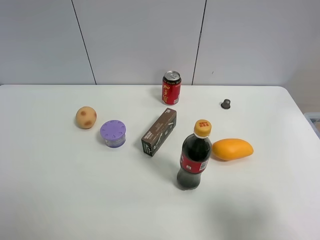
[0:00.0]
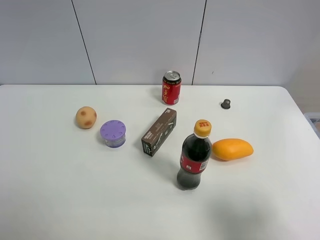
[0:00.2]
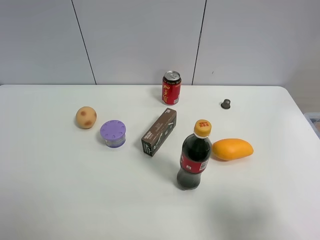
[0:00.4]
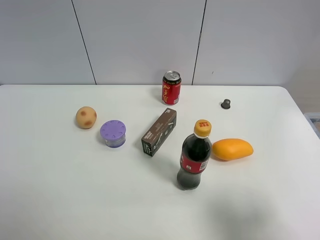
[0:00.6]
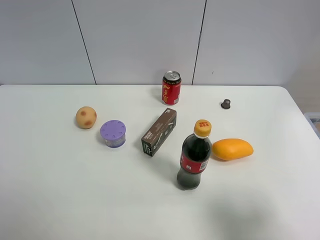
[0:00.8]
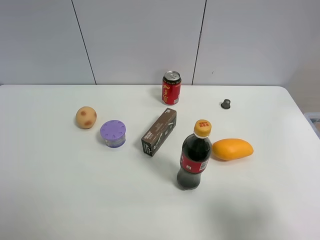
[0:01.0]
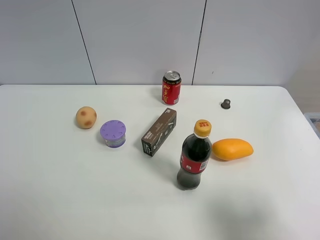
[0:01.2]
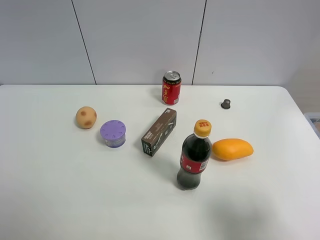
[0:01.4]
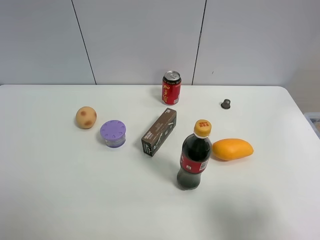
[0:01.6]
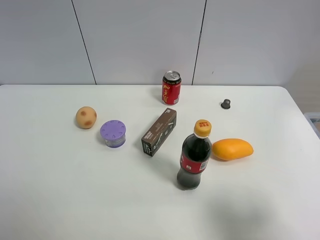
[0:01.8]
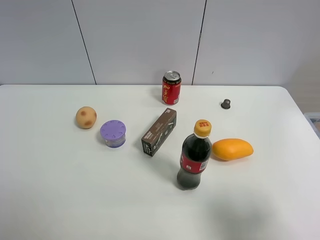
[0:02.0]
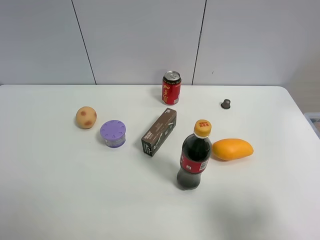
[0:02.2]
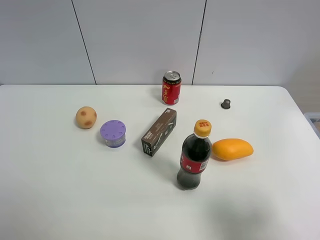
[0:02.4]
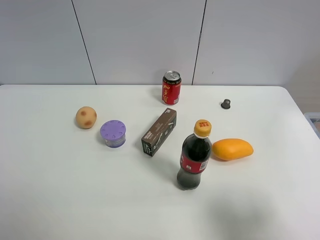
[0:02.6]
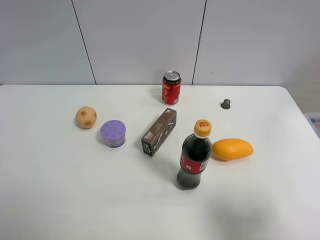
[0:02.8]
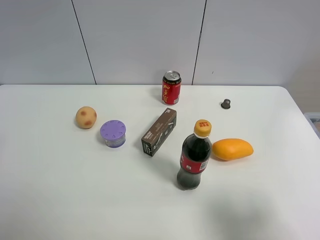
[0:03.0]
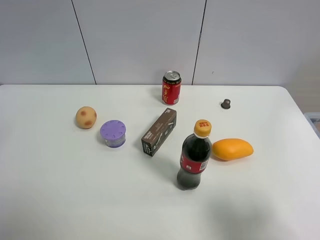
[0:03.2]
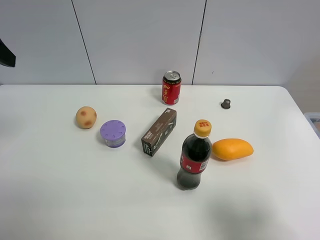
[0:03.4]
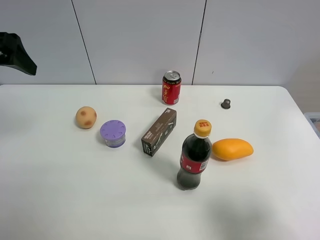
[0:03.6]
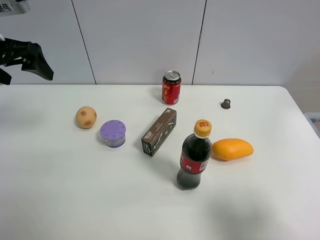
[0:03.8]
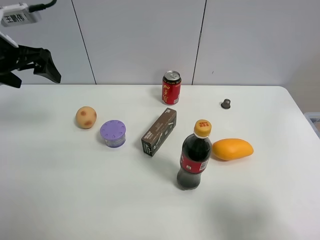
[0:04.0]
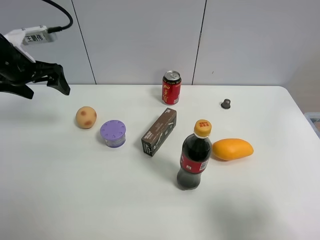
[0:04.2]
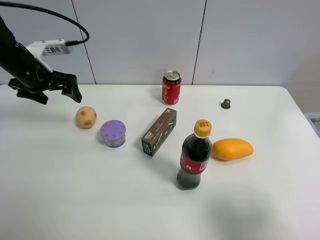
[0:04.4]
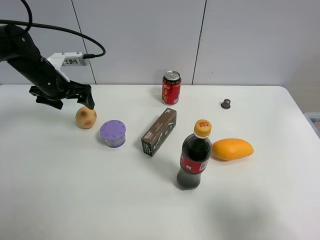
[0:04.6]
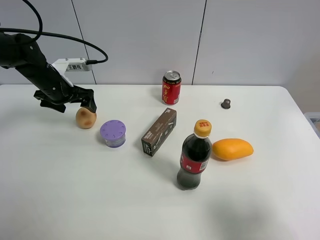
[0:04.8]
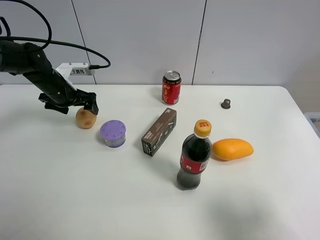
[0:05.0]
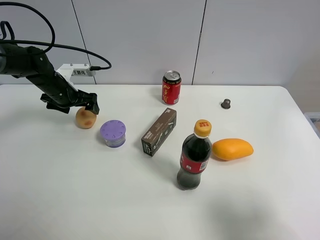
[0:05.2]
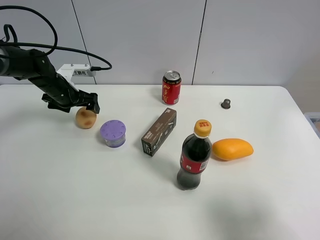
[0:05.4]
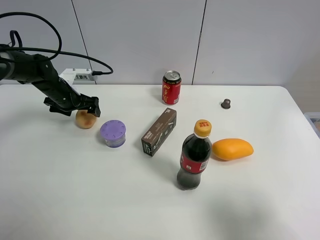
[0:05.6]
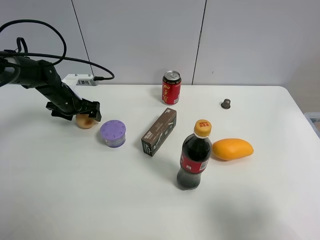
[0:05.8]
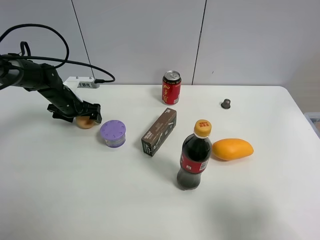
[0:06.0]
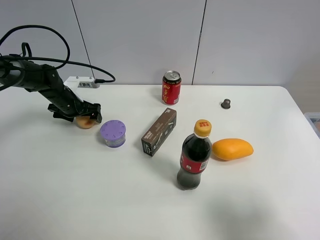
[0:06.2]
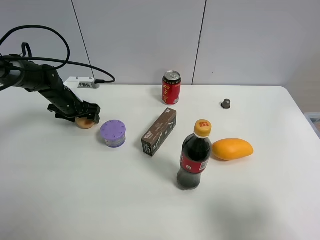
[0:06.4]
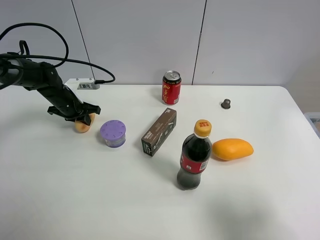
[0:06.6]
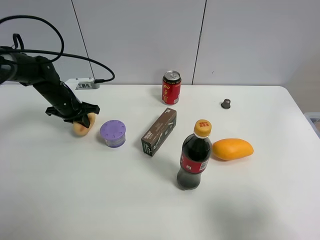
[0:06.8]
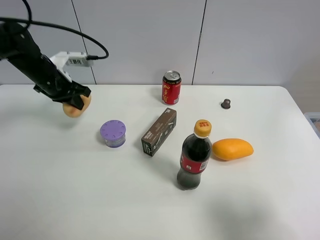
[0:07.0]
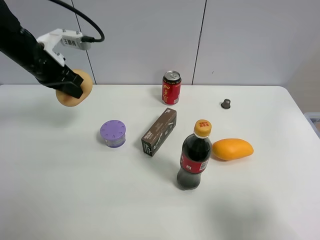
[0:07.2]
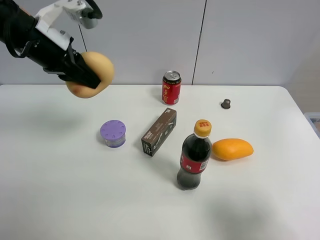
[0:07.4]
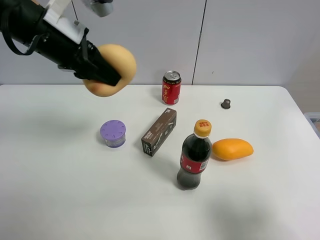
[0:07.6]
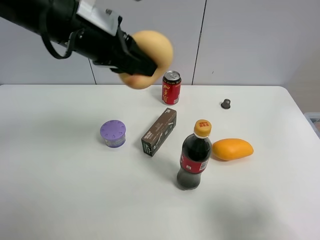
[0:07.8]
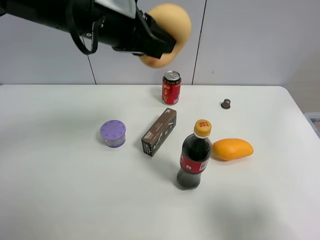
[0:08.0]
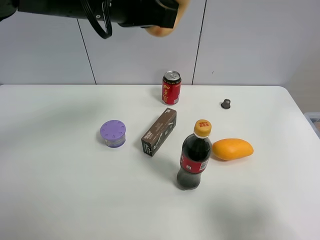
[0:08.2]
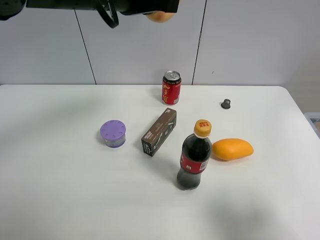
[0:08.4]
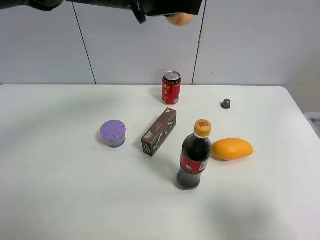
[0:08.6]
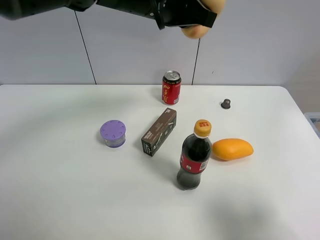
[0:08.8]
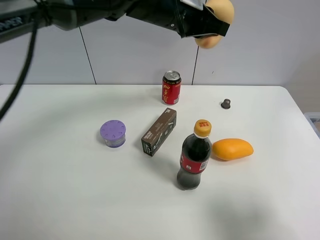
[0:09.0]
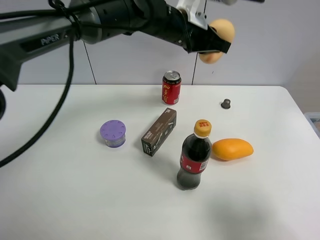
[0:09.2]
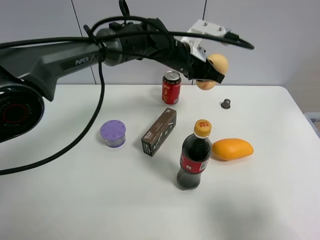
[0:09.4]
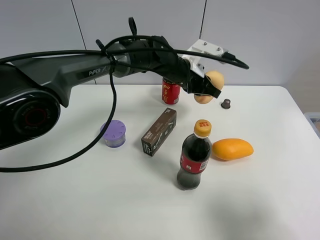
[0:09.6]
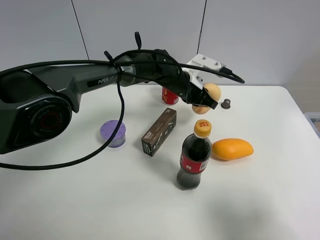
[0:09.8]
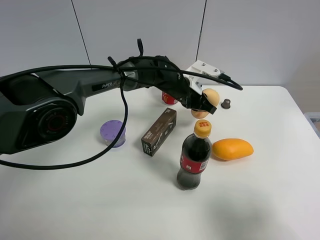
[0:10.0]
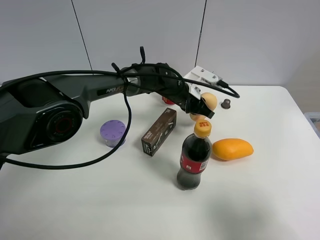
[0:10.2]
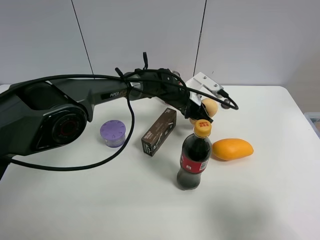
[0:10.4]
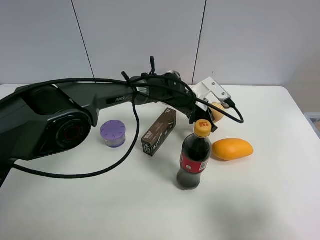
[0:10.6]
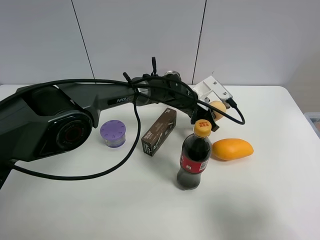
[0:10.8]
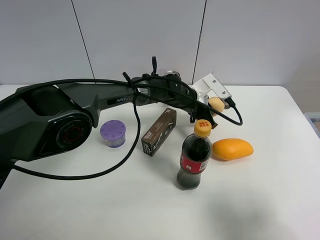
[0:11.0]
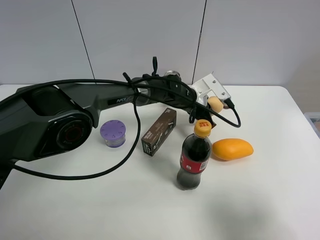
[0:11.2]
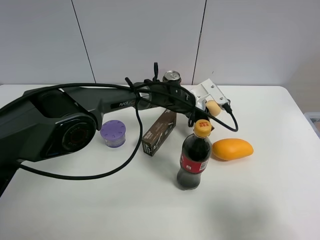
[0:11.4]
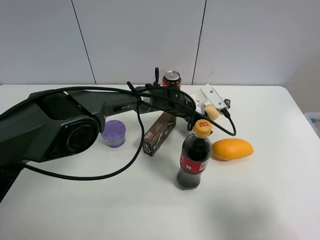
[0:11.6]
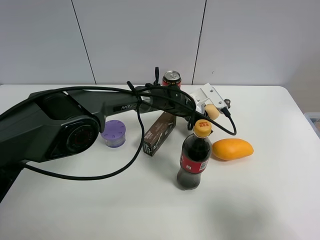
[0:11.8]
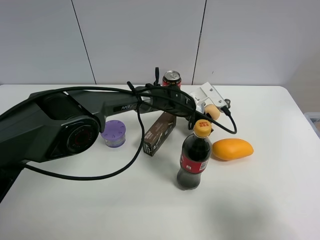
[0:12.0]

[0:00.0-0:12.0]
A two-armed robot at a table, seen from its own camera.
Task of the whole recording: the gripper move the object.
Step, 0.0 to 6.4 s: Grasp the egg yolk pastry with the left gripper.
0.0 to 1.6 s: Neither gripper changes place.
3.0 to 4.4 s: The left gripper heads forward and downward, covering about 30 cm.
4.4 to 6.0 s: The left gripper shifts about 15 cm downward.
6.0 to 7.6 s: The left gripper moves upward, backward and to the right, some 30 cm, and closes.
7.6 to 9.0 s: The left gripper travels to the right and forward by some 20 cm.
9.0 to 10.4 s: The left gripper goes about 20 cm downward.
10.4 to 12.0 s: The left gripper opens.

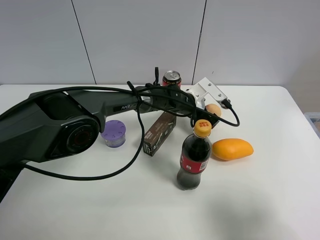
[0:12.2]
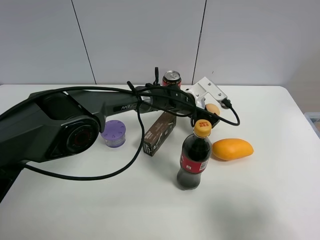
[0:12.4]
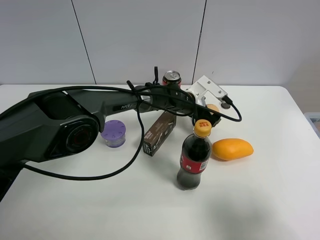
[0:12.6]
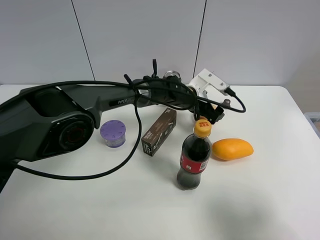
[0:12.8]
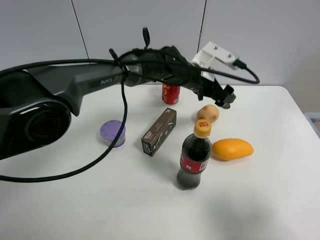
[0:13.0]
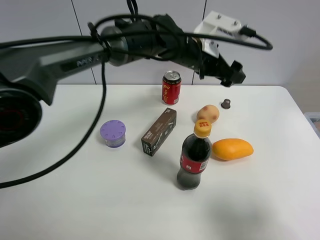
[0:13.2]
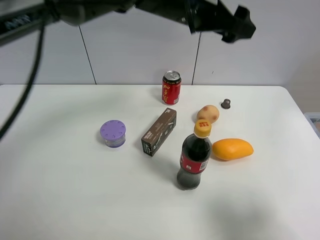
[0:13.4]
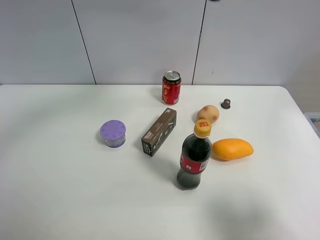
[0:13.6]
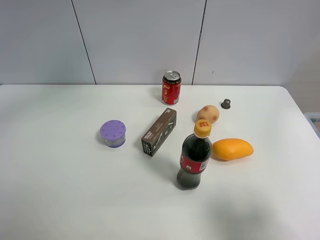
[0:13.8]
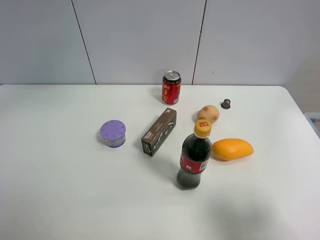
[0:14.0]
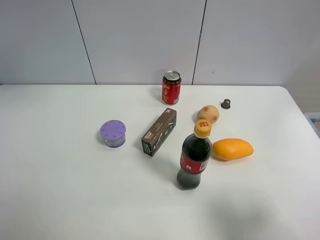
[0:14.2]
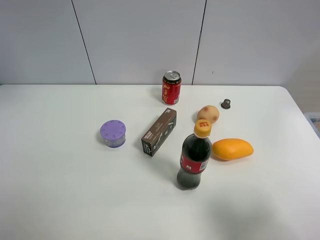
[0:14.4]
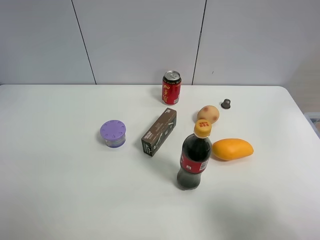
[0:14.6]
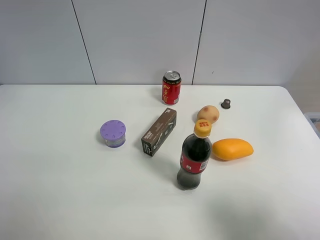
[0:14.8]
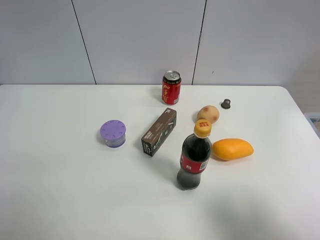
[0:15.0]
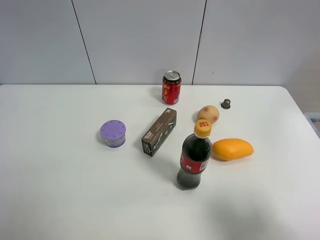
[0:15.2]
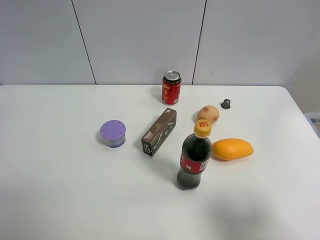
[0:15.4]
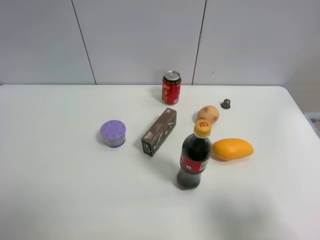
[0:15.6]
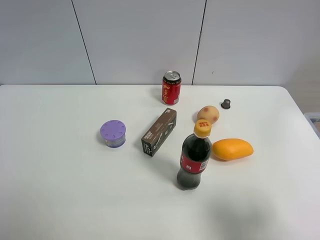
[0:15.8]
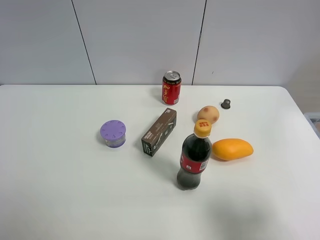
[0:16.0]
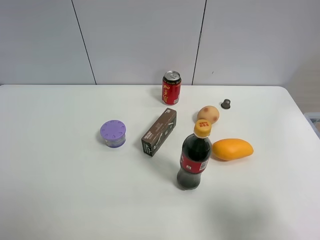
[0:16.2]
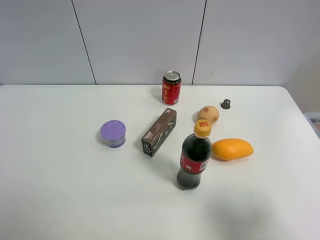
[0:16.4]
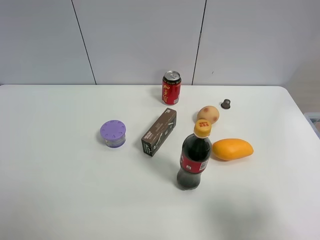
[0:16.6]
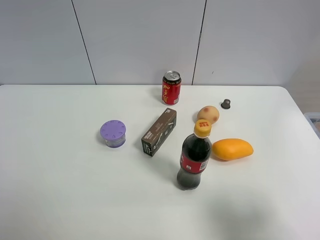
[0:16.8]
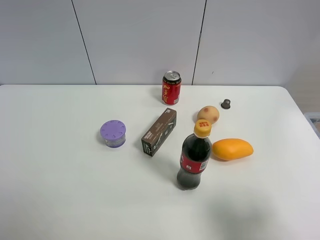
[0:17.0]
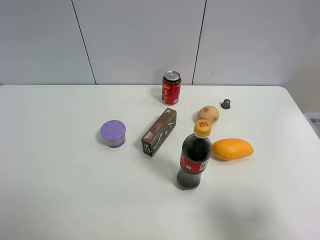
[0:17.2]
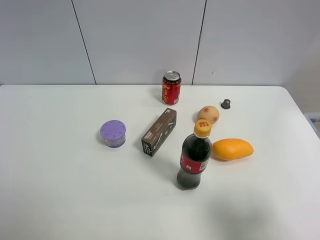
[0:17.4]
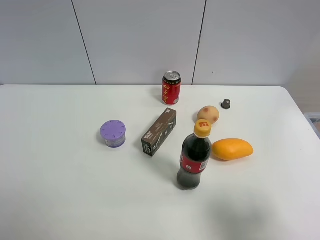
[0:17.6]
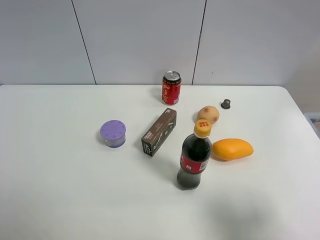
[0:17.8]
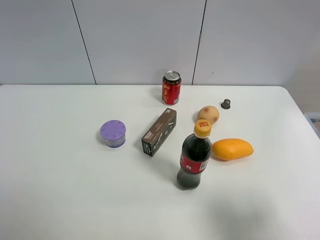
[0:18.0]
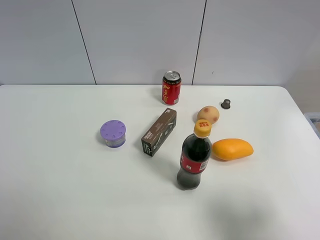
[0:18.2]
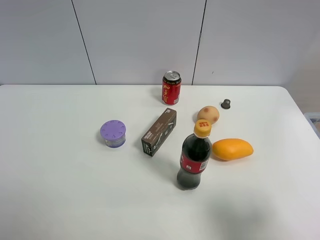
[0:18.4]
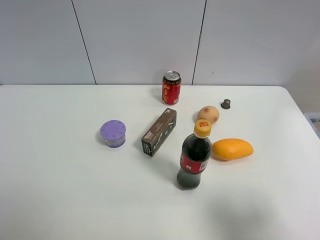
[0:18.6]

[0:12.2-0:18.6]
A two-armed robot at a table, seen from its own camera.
Task of the whole recording: the gripper move the object.
12.2 to 13.8 s: The left gripper shifts approximately 40 cm upward and to the left.
13.8 to 15.4 s: The left gripper travels to the left and backward by some 25 cm.
17.0 to 18.6 s: Neither gripper changes place.

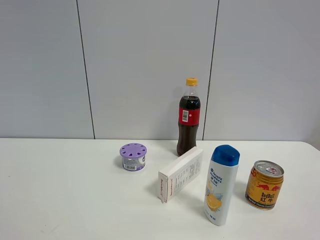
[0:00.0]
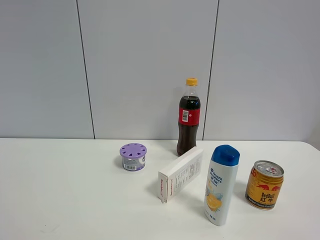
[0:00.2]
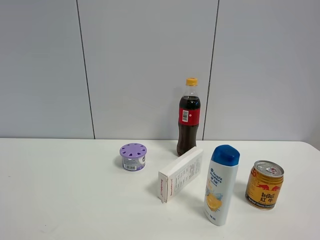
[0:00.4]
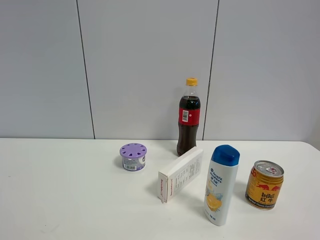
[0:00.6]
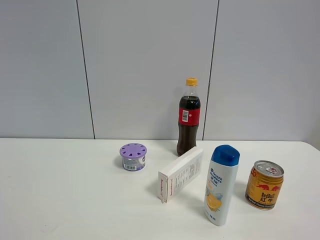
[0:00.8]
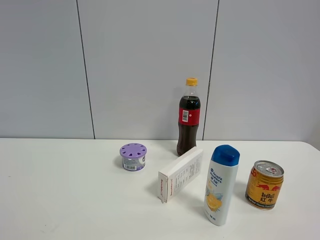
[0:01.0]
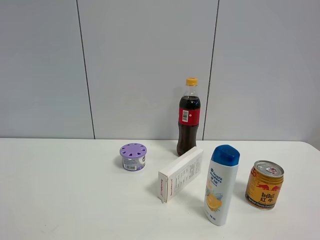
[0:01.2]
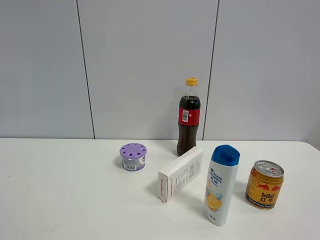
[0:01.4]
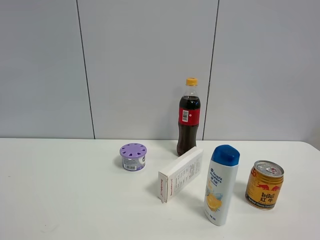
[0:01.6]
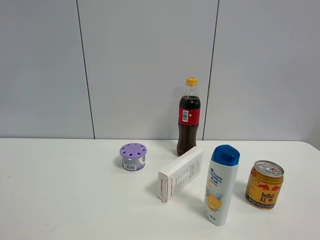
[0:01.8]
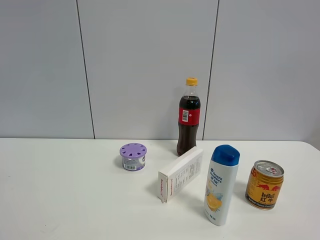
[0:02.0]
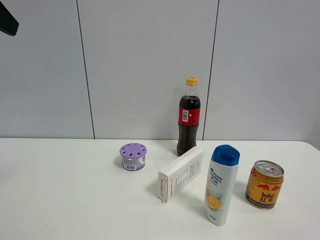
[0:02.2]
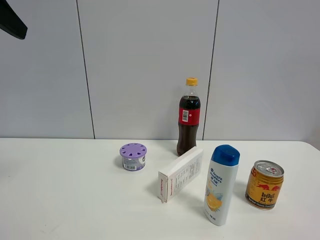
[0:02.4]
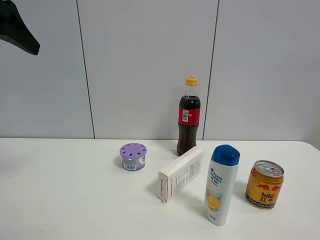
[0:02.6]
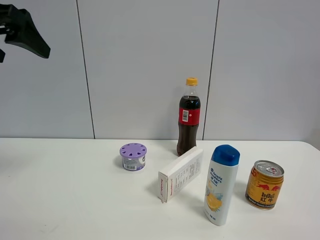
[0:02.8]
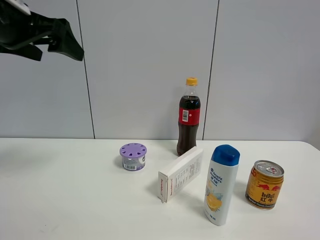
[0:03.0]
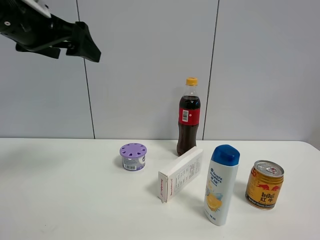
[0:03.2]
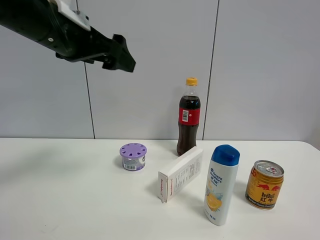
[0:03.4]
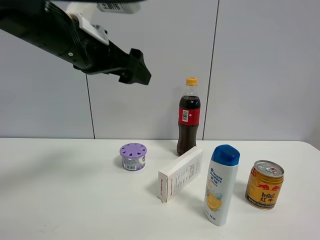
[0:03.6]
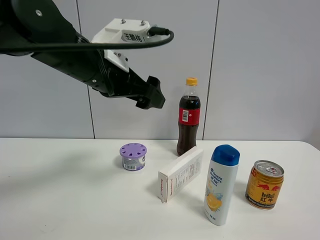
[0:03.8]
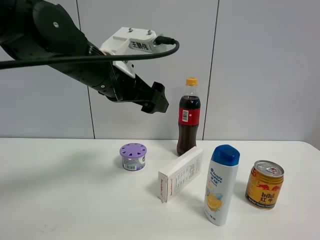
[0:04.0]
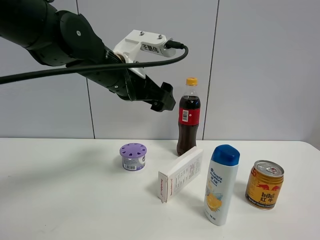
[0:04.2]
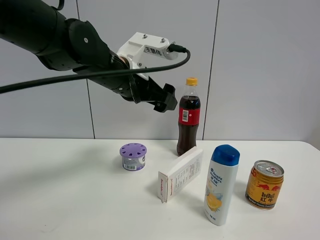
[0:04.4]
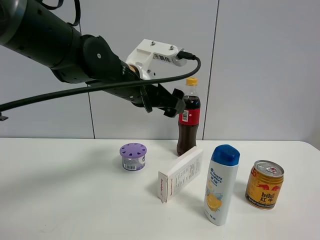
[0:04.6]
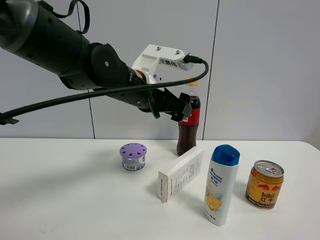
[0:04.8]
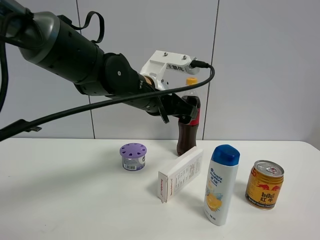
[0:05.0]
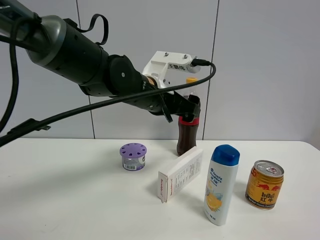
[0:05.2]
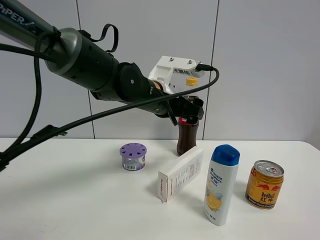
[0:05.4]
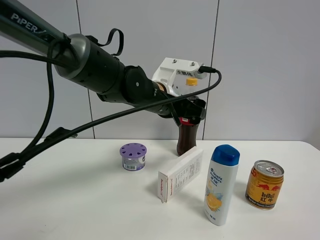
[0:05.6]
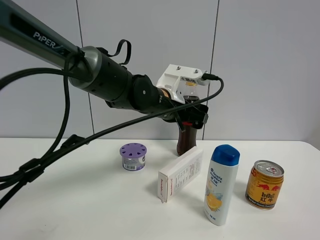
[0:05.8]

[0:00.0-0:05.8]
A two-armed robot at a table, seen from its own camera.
Task of the whole recording: the gripper move the object.
1.4 to 2.8 s: The left gripper goes some 25 cm forward.
2.8 to 4.4 s: The left gripper shifts about 25 cm to the right and downward.
4.4 to 5.8 s: The left gripper is displaced to the right and downward by about 10 cm.
